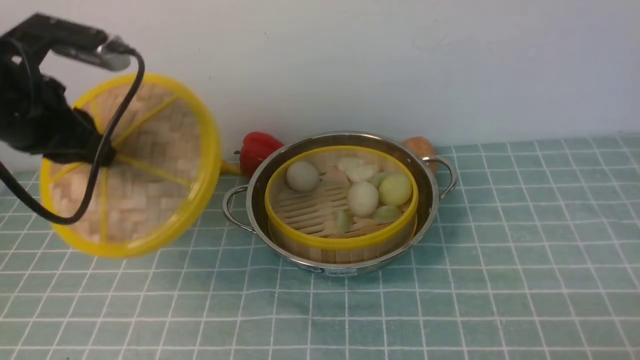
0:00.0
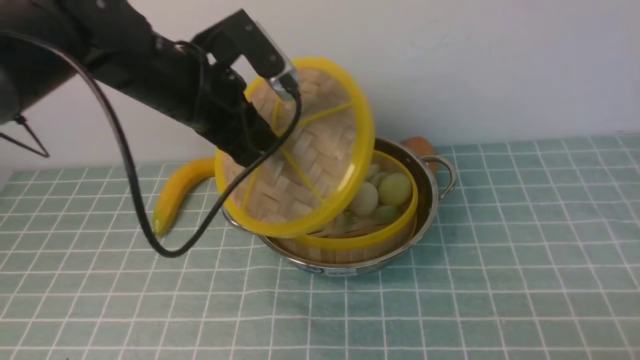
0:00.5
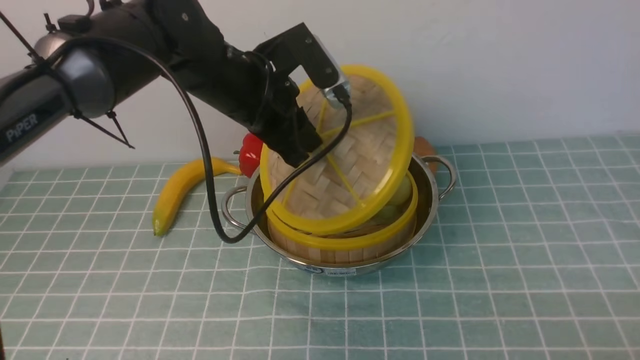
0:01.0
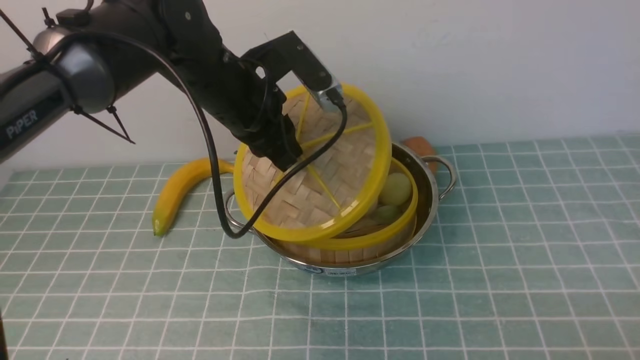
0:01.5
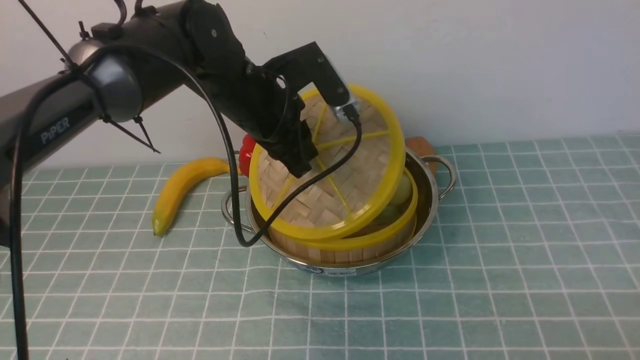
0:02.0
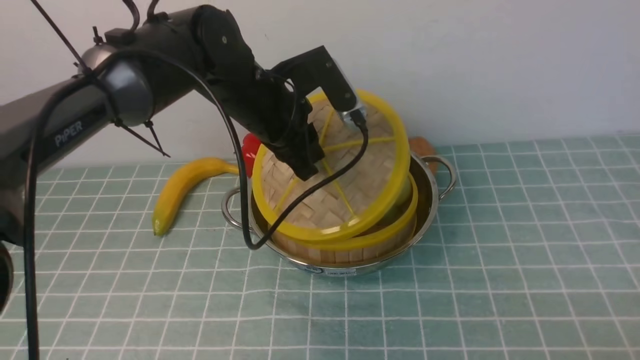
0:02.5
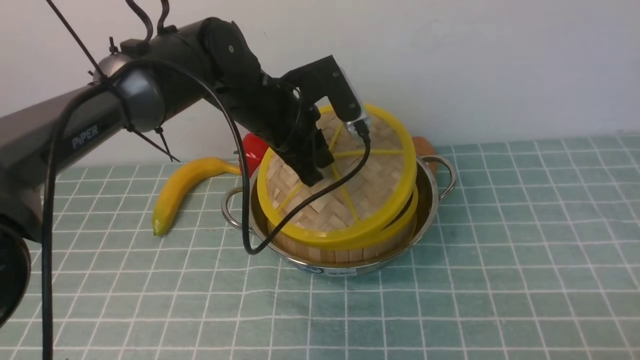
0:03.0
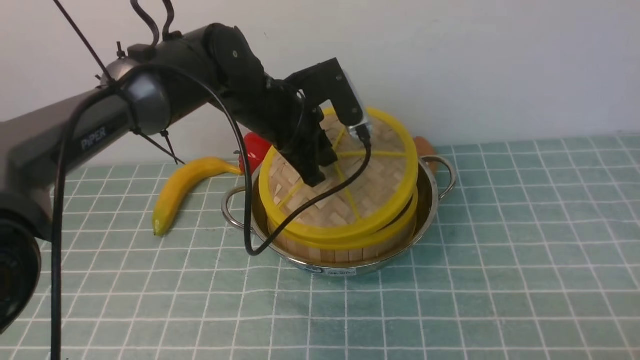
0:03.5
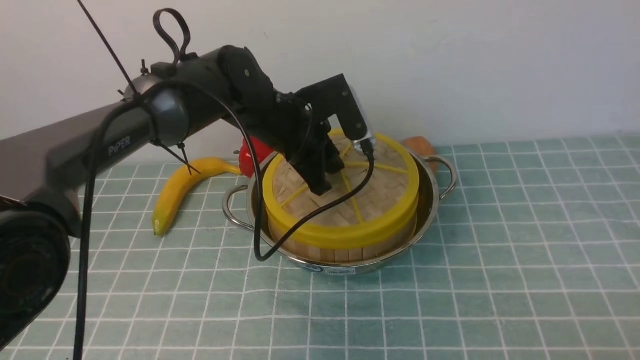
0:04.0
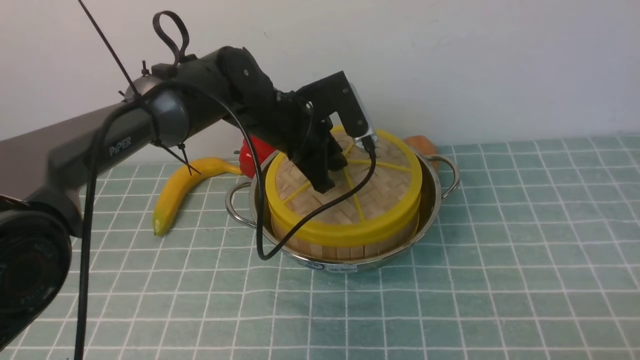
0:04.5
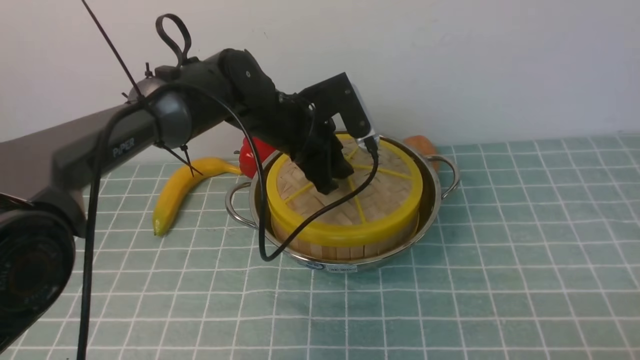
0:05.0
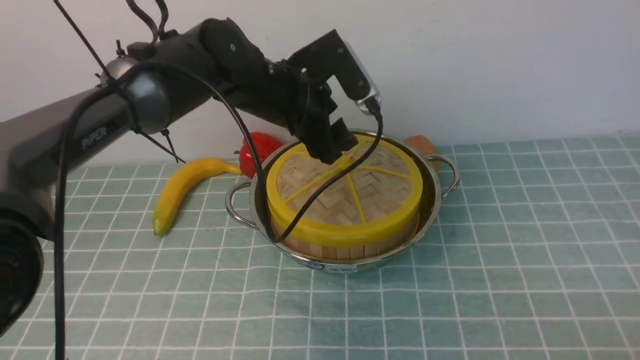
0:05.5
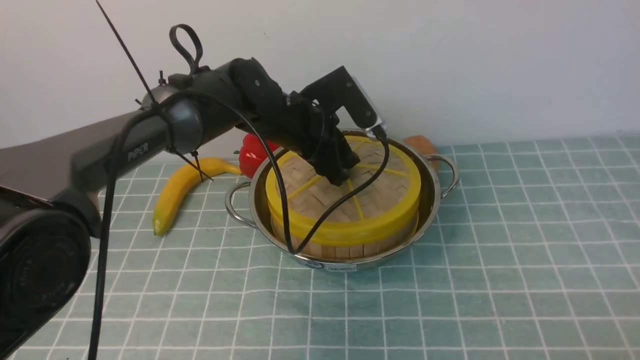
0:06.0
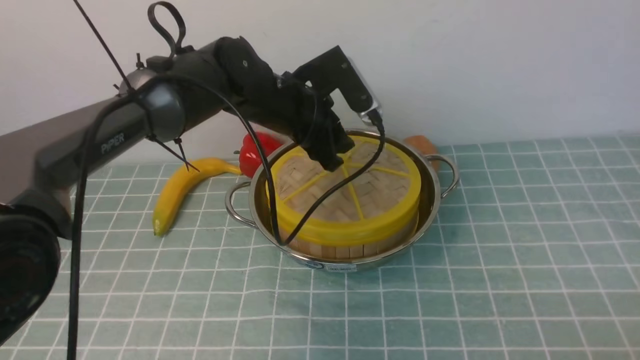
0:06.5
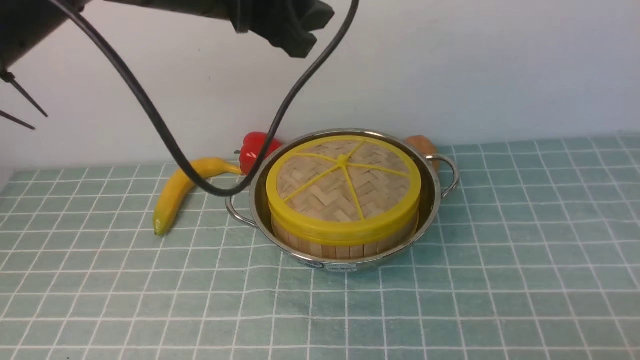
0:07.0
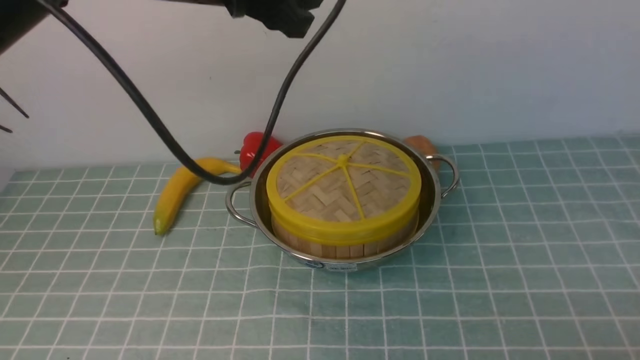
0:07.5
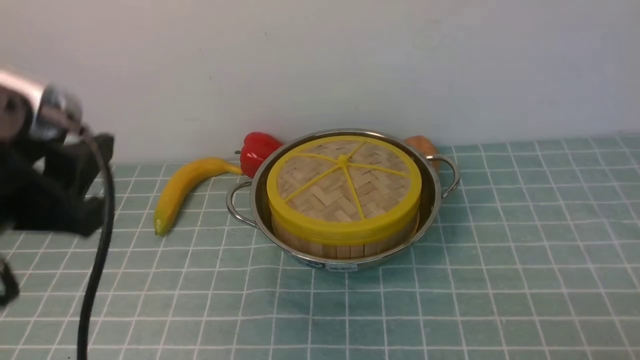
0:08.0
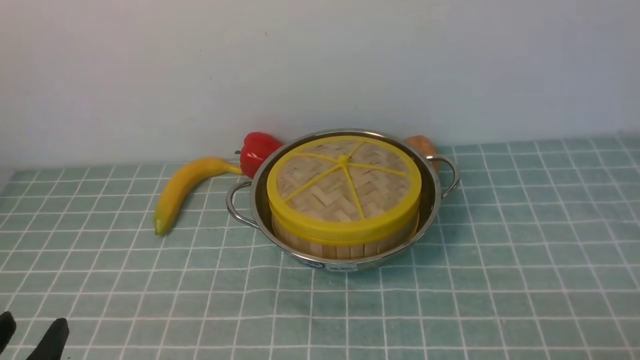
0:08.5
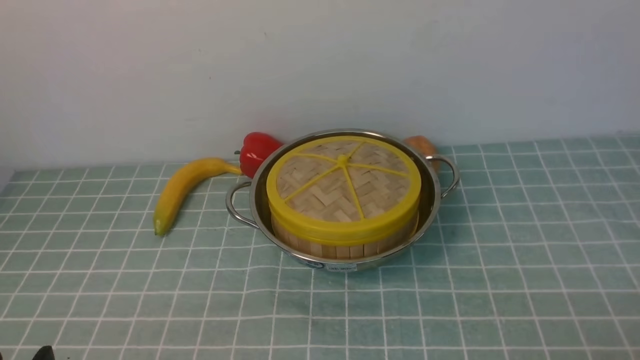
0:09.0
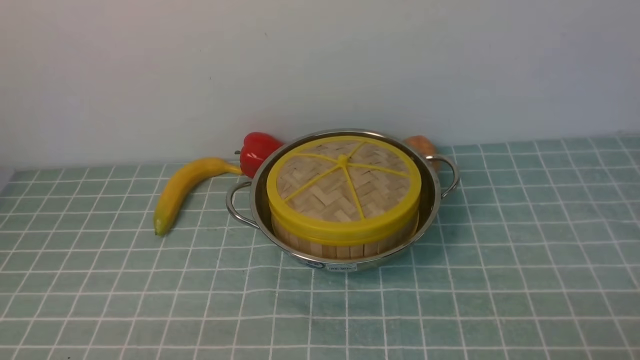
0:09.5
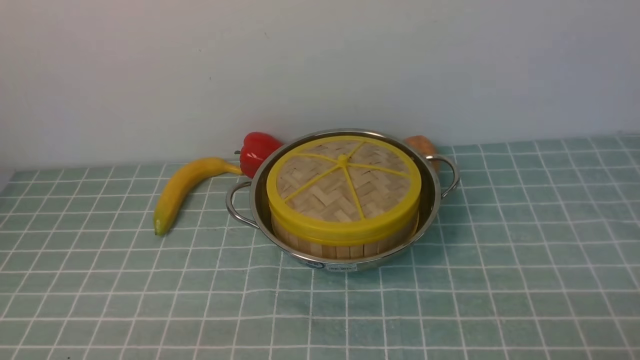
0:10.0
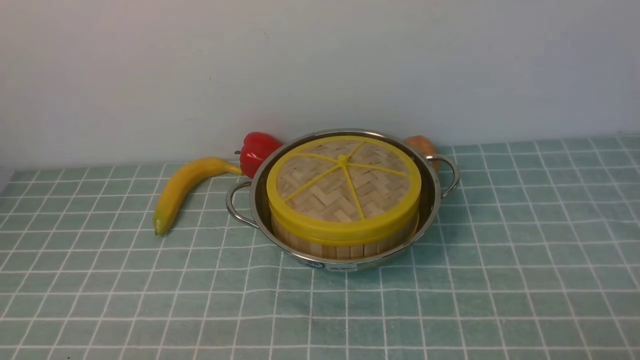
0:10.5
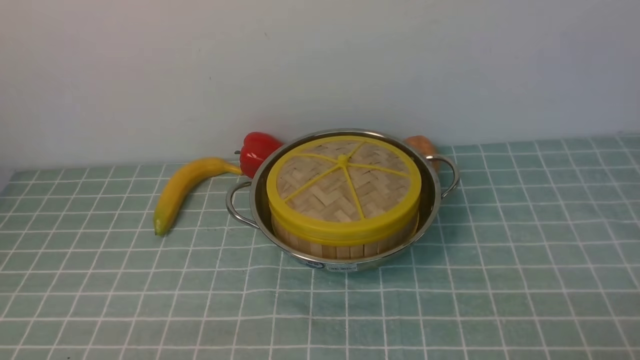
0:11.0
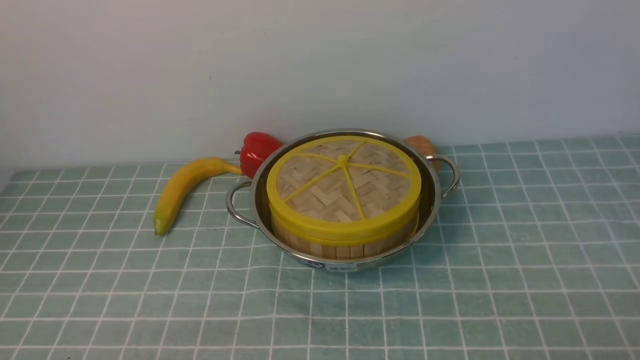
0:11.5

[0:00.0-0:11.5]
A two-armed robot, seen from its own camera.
Task of the whole recording: place the steamer in the pot on the blue tablecloth, and put the lid on the steamer.
Step, 0:00.0 to 0:05.5: use the left arm to place the steamer lid on the steamer.
0:00.0 to 0:02.0: The left gripper shifts roughly 20 cm to the right and forward.
0:02.0 to 0:04.0: The left gripper heads downward, covering roughly 5 cm.
0:04.0 to 0:06.0: The left gripper opens its fingers.
0:06.0 to 0:07.5: The left gripper travels upward and backward by approximately 25 cm.
0:07.5 to 0:09.5: The left gripper goes about 40 cm backward, downward and to the left.
0:09.5 to 0:11.5: The two grippers keep their place.

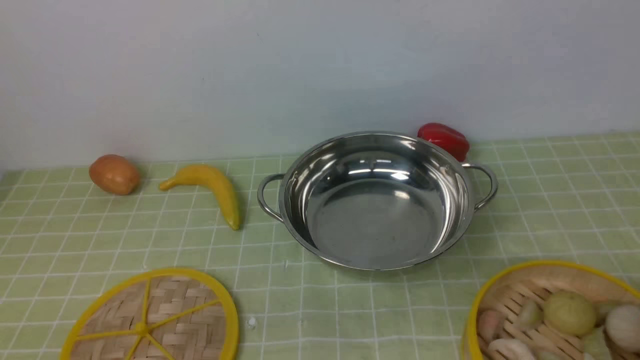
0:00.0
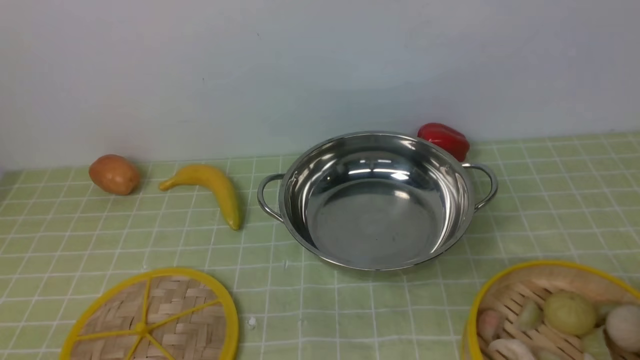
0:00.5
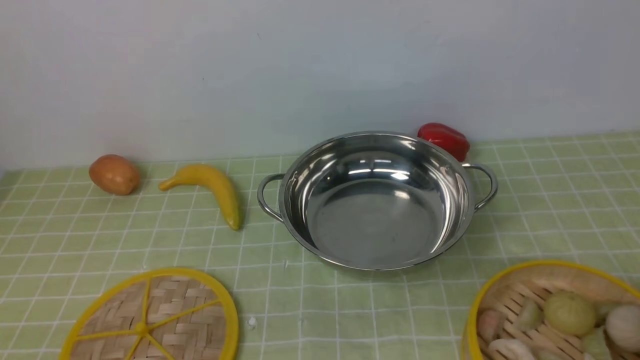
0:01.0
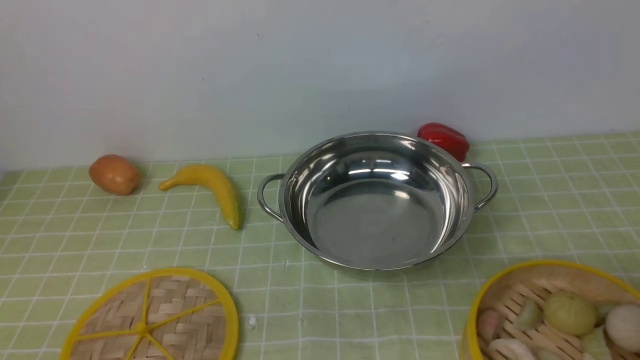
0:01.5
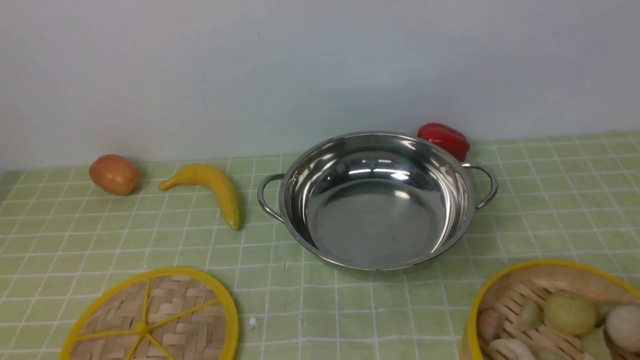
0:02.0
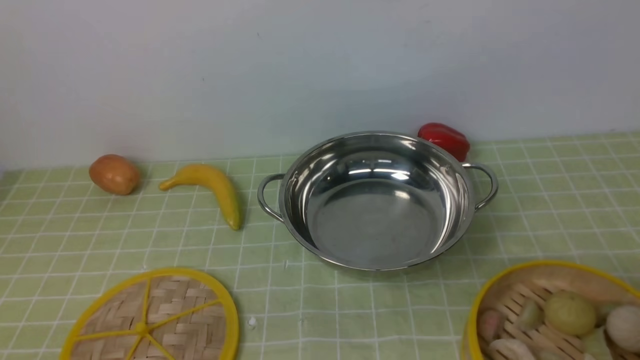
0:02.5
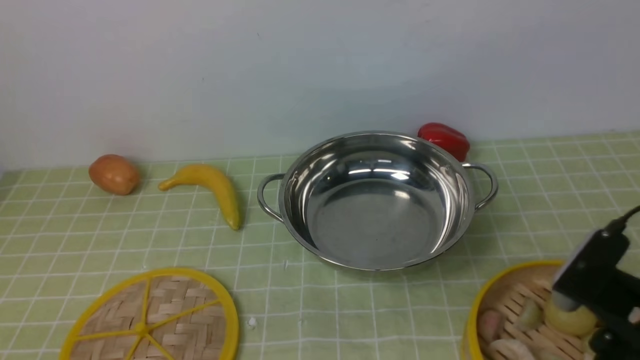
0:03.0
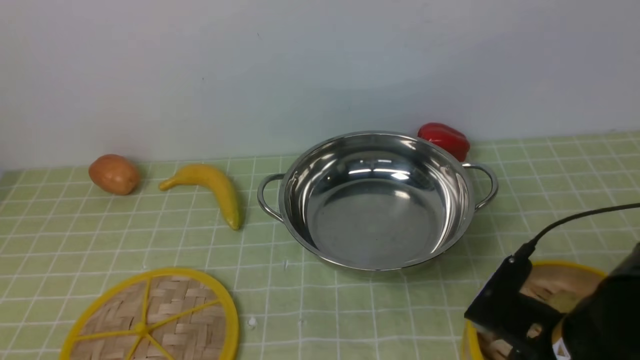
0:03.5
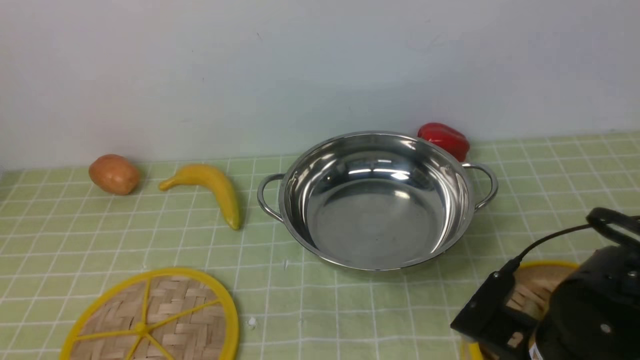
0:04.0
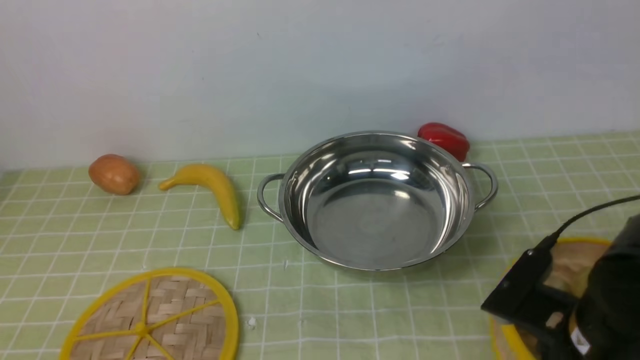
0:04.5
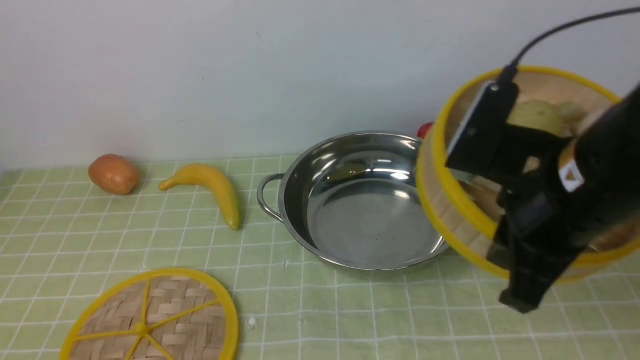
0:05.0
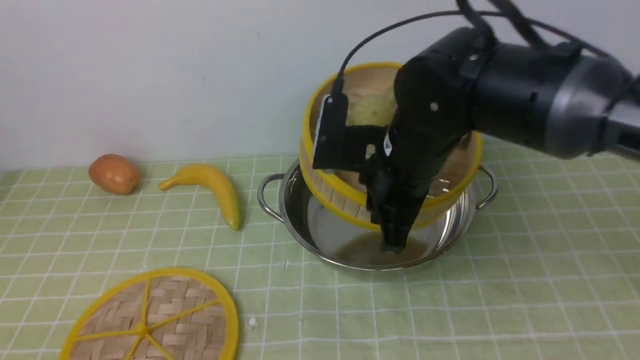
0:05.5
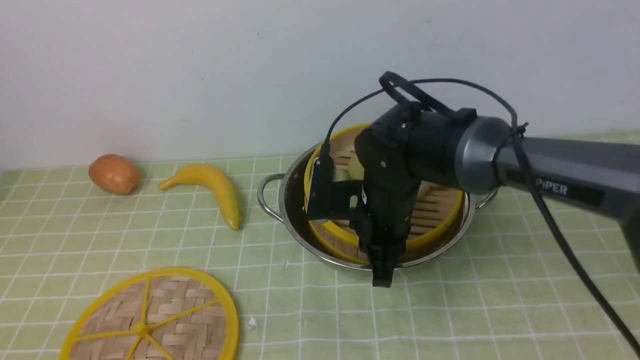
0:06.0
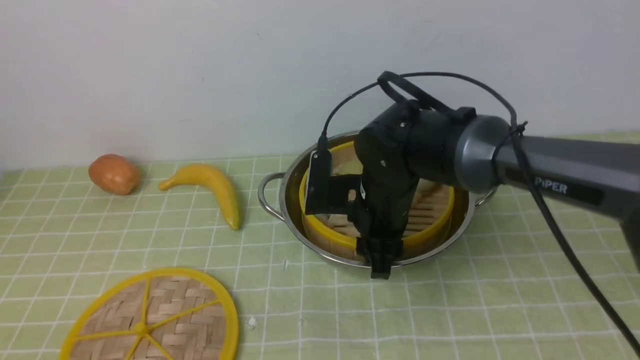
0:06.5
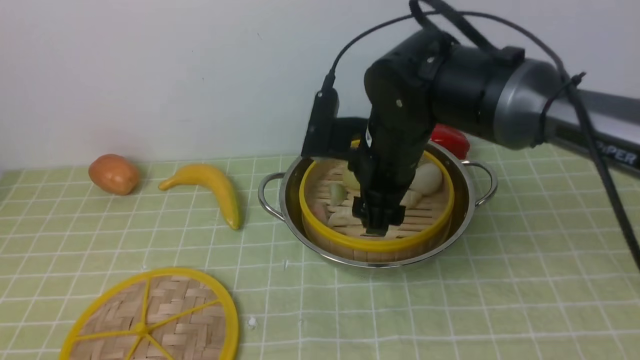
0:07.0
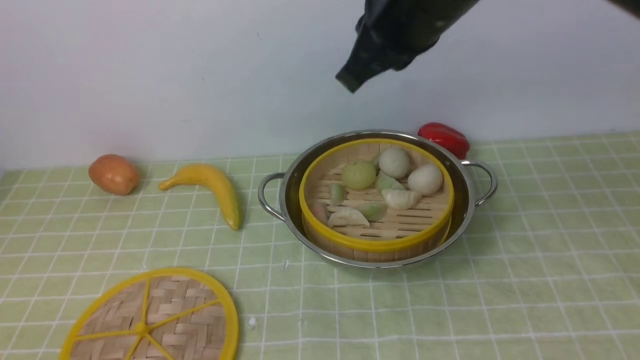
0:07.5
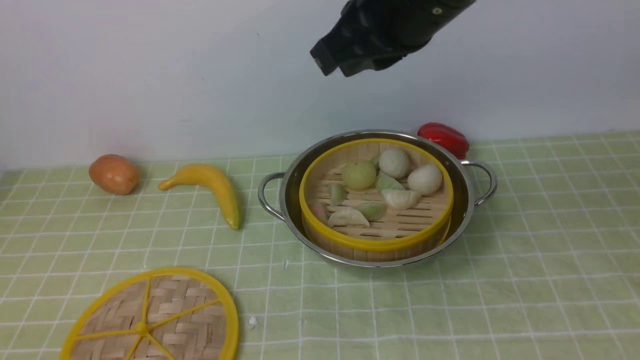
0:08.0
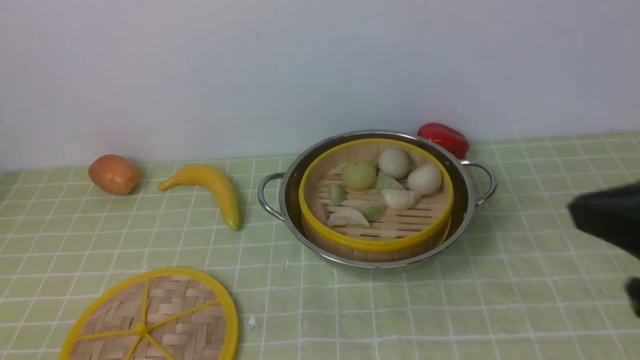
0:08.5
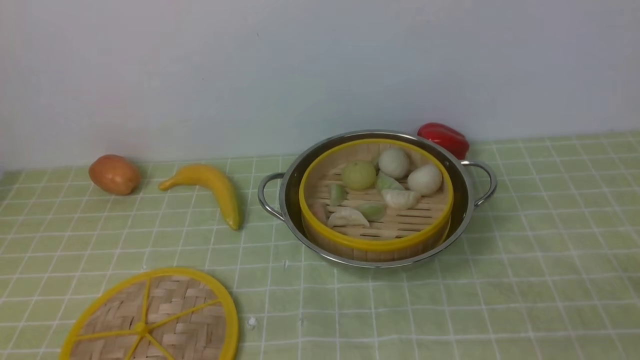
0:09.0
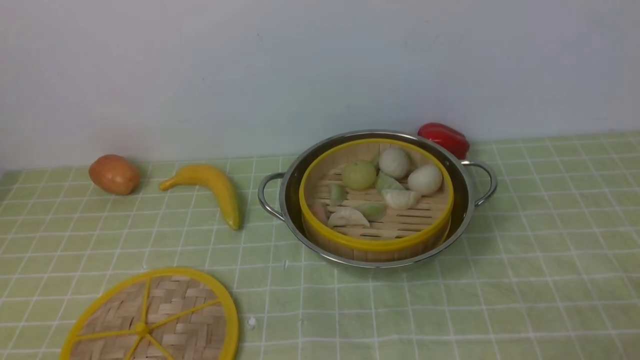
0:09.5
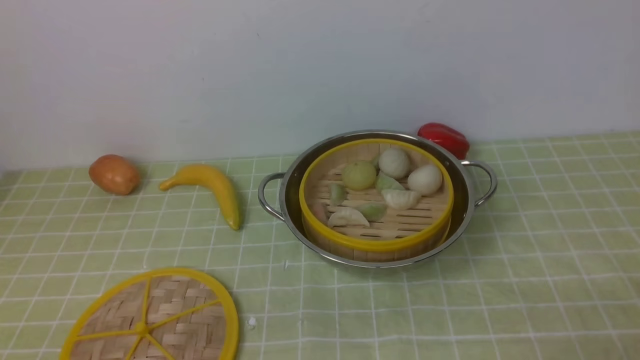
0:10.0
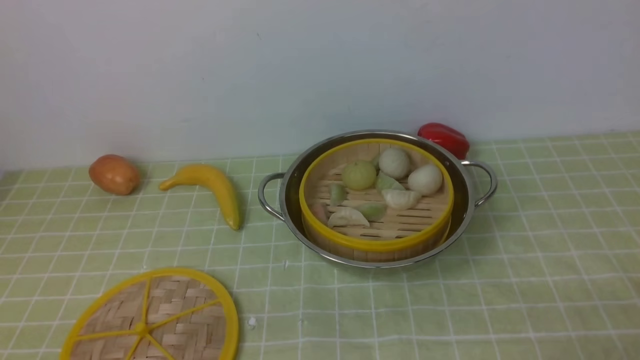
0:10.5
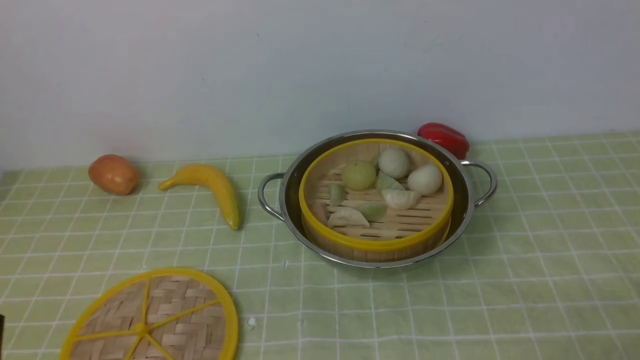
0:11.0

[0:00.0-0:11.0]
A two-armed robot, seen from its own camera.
Task of the whole recording: place the steamer in the pot on the green tablecloth, and put the lid on the steamer.
Step, 0:00.0 to 0:05.0: use the right arm to lift the steamer closest to it.
Step, 0:05.5 to 0:07.5: use the right arm to put the steamer into the iron steamer pot in the middle.
0:02.0 to 0:03.5: The right gripper heads forward, downward and to the left, covering approximately 20 cm, and opens.
0:03.5 to 0:05.5: The right gripper shifts roughly 20 cm forward, to the left and upward, and closes up.
0:05.5 to 0:07.5: The right gripper travels upward by roughly 15 cm, and opens, then closes again.
0:07.5 to 0:09.0: The right gripper heads backward, to the right and downward, covering some 40 cm.
